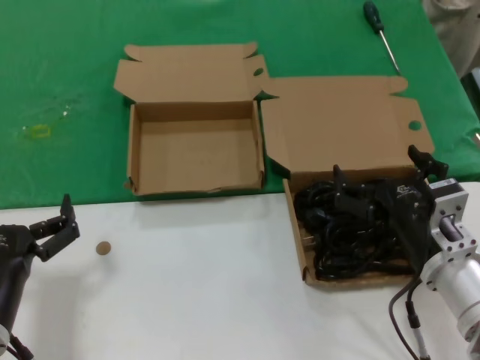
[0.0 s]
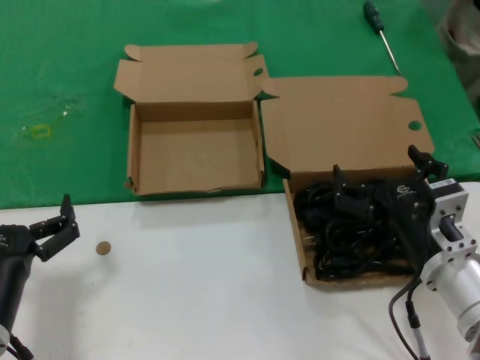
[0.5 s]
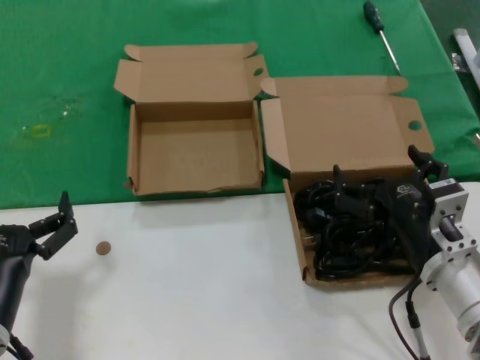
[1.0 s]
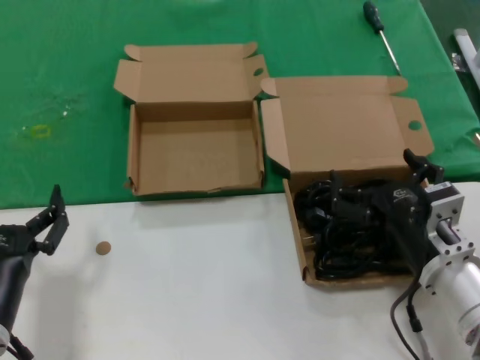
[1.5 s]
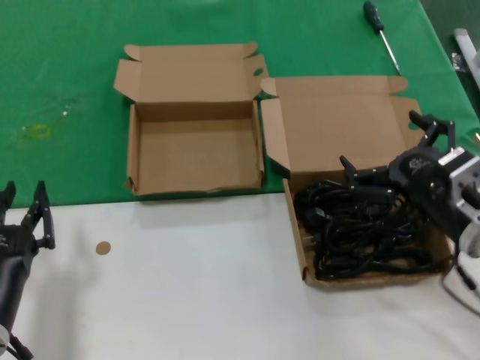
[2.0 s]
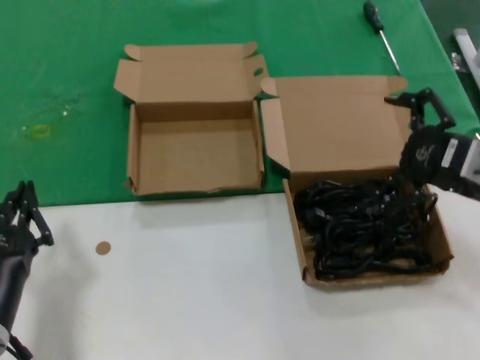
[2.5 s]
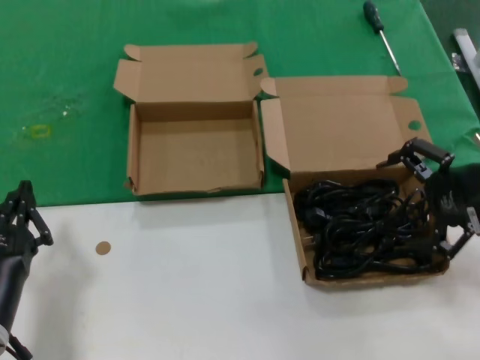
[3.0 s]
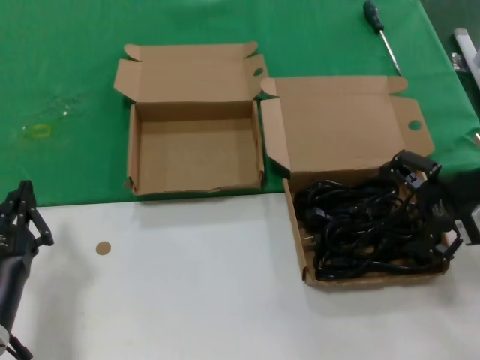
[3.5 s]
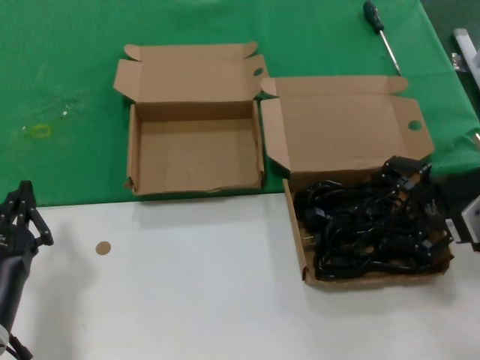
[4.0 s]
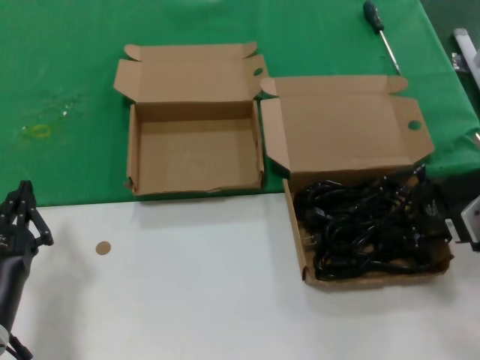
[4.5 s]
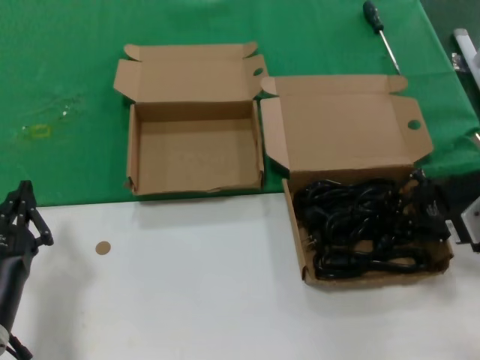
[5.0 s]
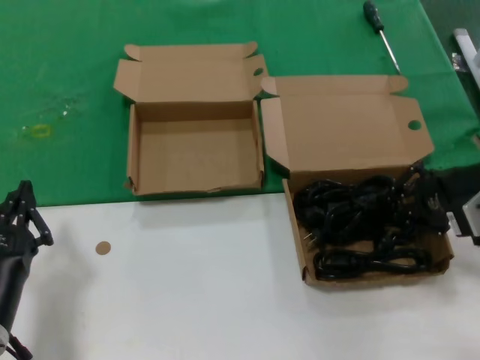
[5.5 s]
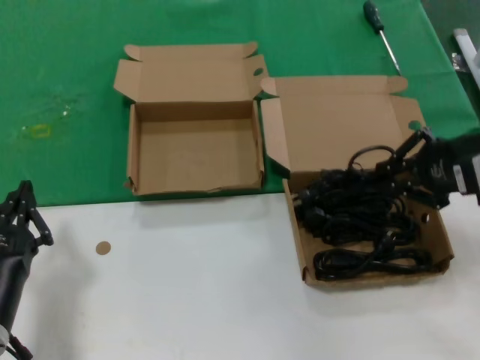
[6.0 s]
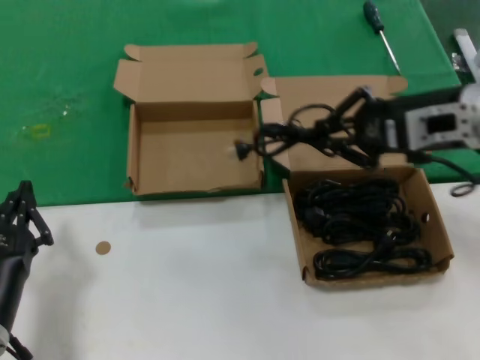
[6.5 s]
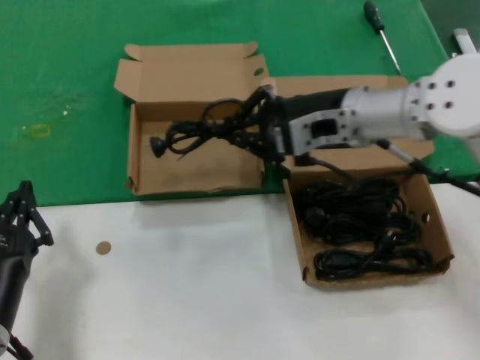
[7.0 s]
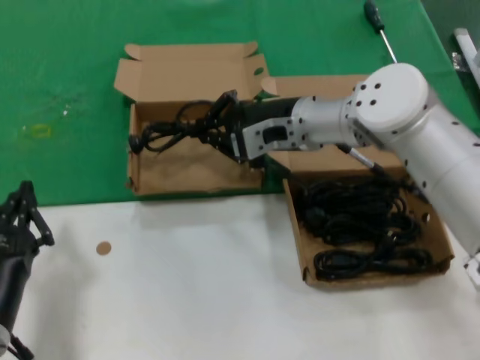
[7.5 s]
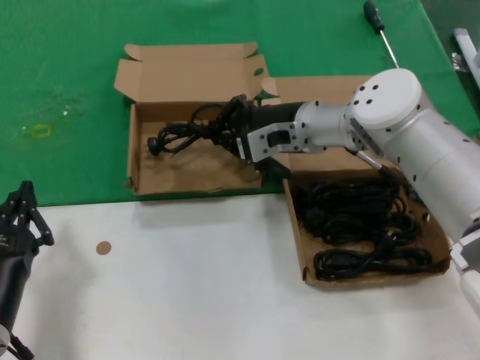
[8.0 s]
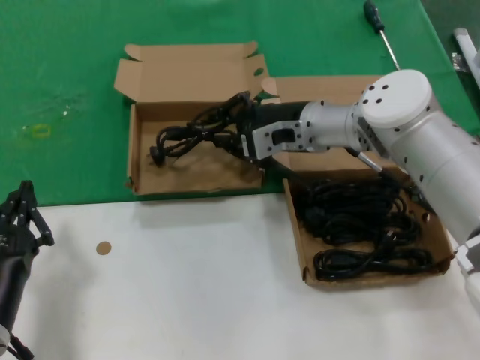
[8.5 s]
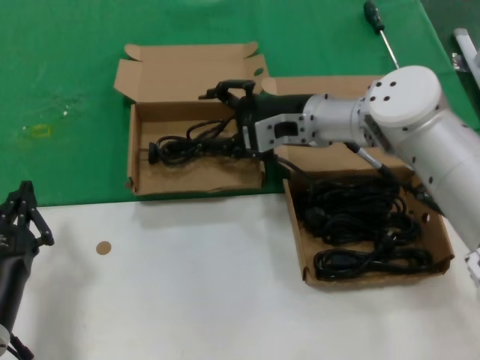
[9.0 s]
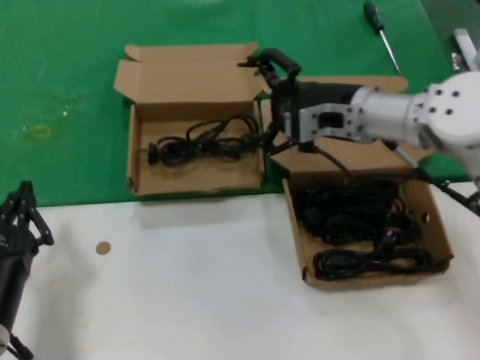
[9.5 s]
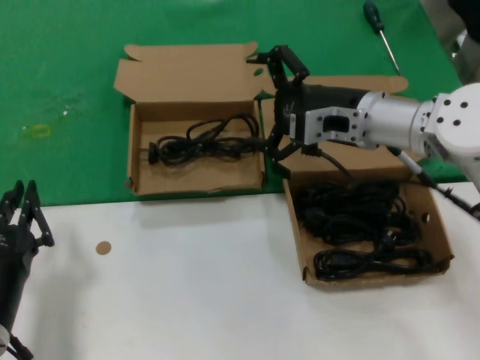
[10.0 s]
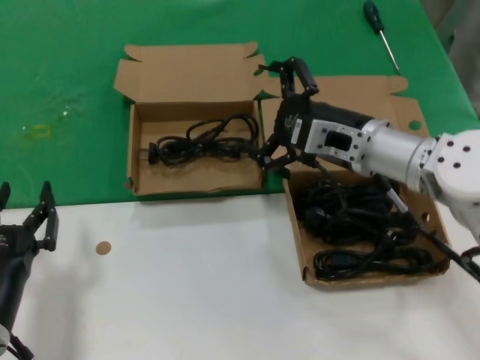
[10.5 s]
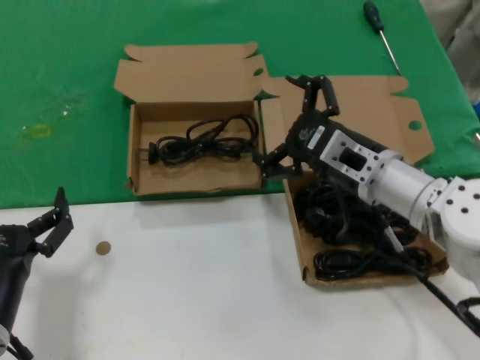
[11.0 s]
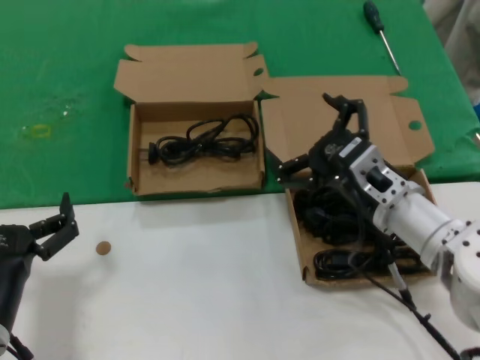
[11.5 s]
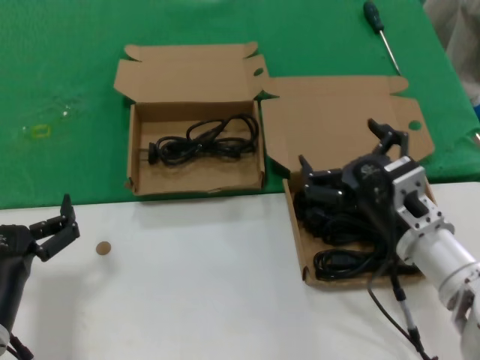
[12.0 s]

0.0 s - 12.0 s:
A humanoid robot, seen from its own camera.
Task of the whole recording: take the parts from the box containing them and put them into an empty box.
Step, 0.0 s - 5.0 s: Grasp the data cable.
Step, 5.5 s - 8.5 s: Place the data cable in the another box.
0.0 s - 2.0 s: The right hand moves approximately 5 cm.
2.0 s - 4.0 s: The right hand moves upward, to the right and forward, approximately 15 cm.
4.0 s - 6.0 s: The right hand travels upward by about 5 cm.
6.0 s - 8.0 s: The right hand goes about 25 cm to the left and forward.
8.0 s - 10.0 s: The right hand is displaced to the right and backward by about 10 cm.
10.0 s - 12.0 s: The right hand shifts some 20 cm backward and downward.

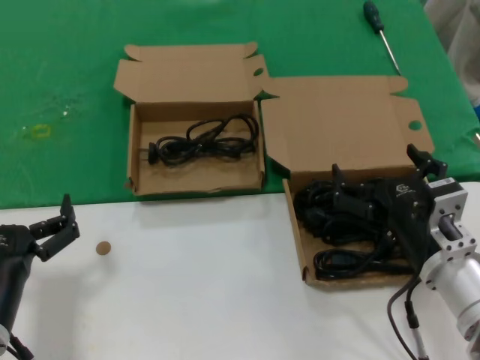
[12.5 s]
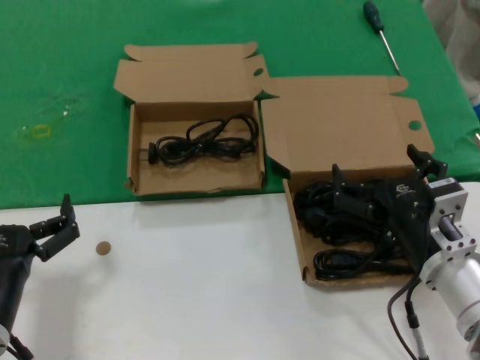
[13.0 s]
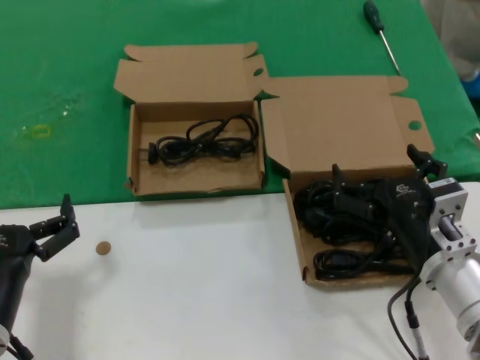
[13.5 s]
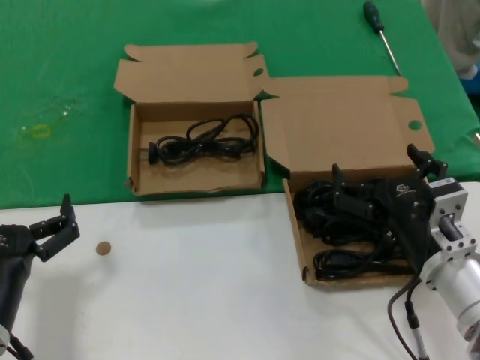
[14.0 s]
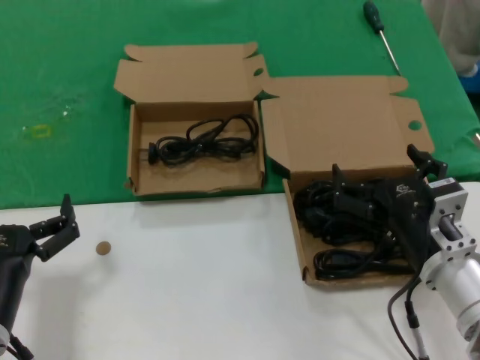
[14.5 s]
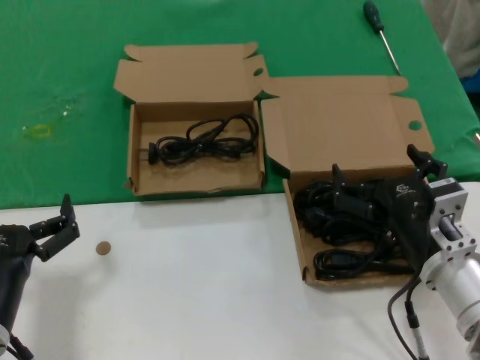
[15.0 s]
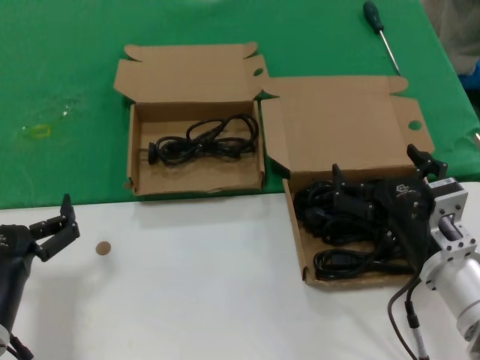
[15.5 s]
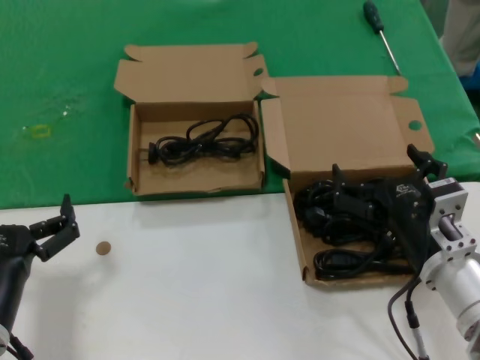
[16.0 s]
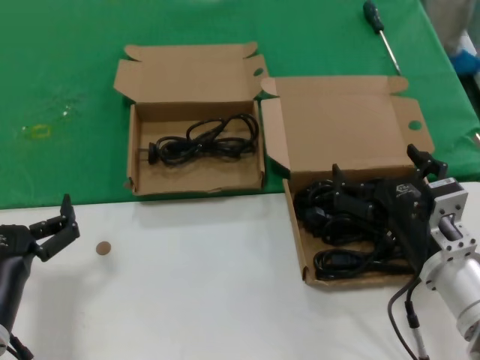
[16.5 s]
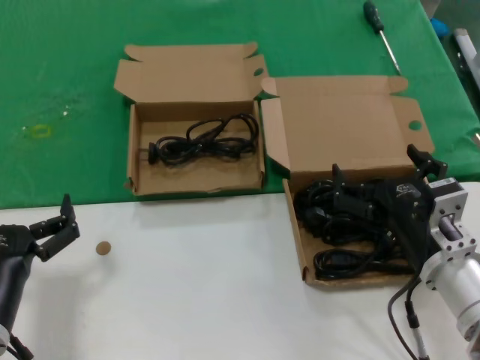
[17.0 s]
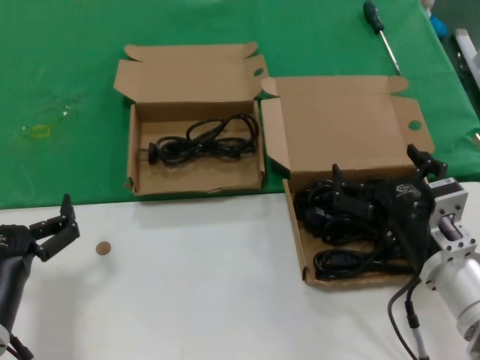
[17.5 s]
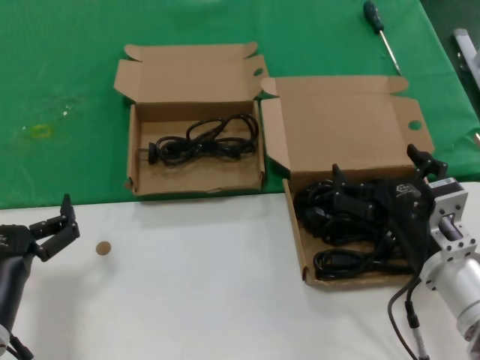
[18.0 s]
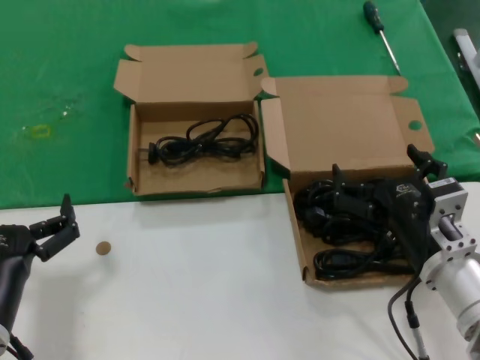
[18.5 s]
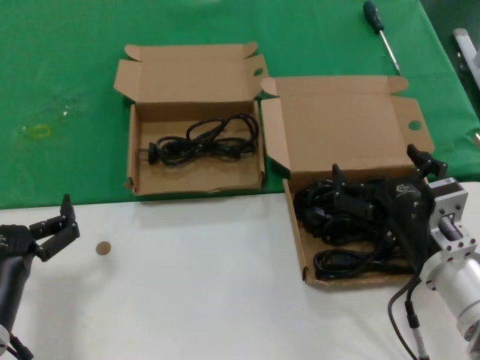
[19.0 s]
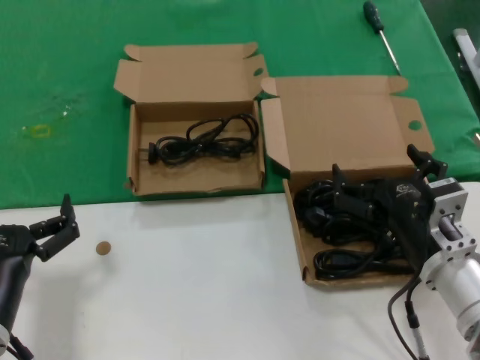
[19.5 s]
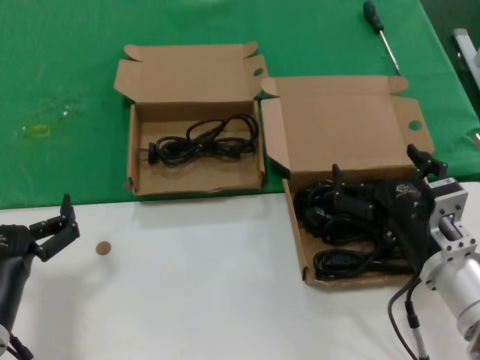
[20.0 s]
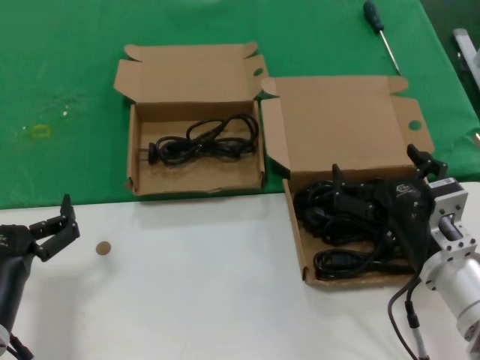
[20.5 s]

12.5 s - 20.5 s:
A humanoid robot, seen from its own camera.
Task of the whole recording: take the parts from the box containing them and put them into an empty box.
12.5 s - 20.5 s: Both hands stay put.
